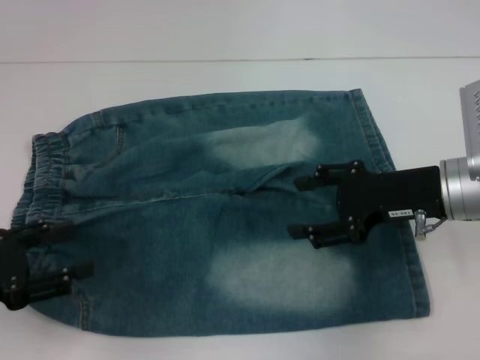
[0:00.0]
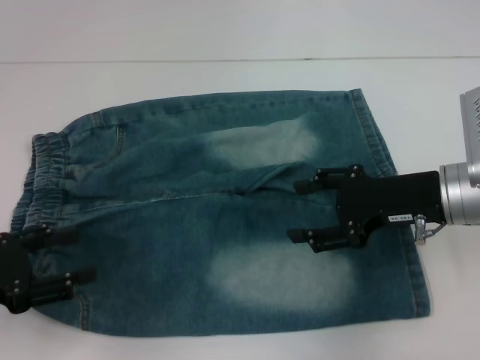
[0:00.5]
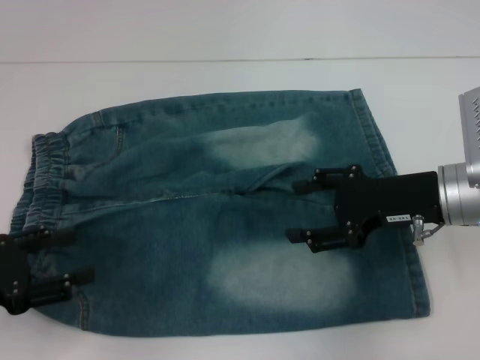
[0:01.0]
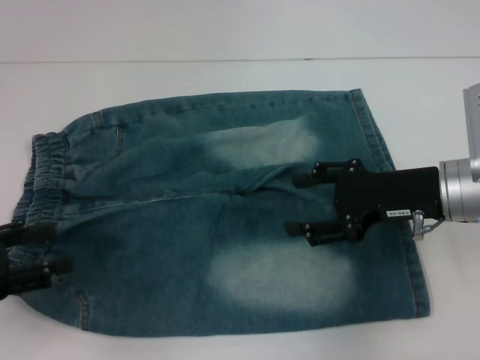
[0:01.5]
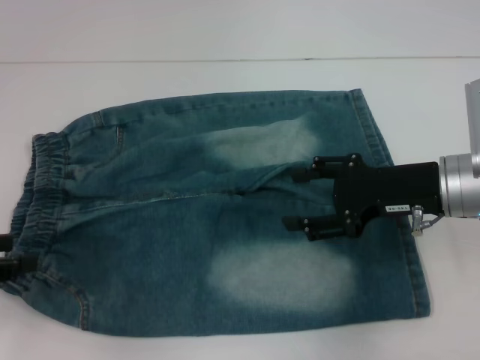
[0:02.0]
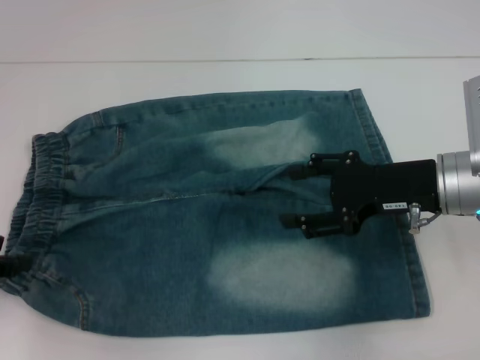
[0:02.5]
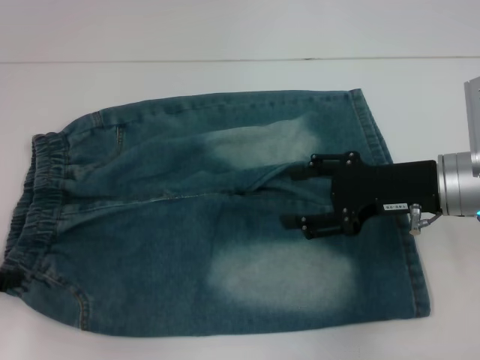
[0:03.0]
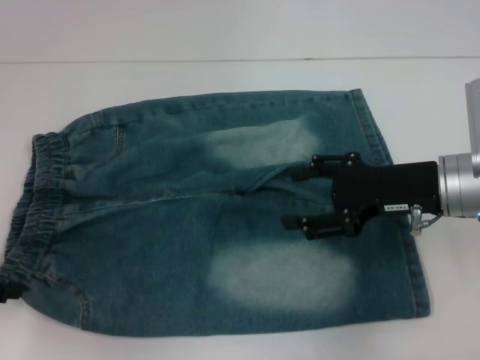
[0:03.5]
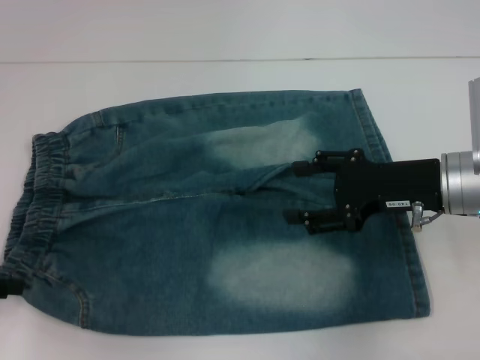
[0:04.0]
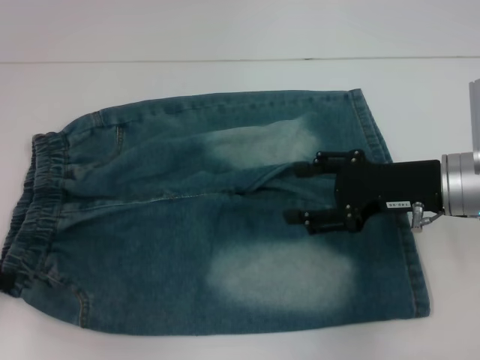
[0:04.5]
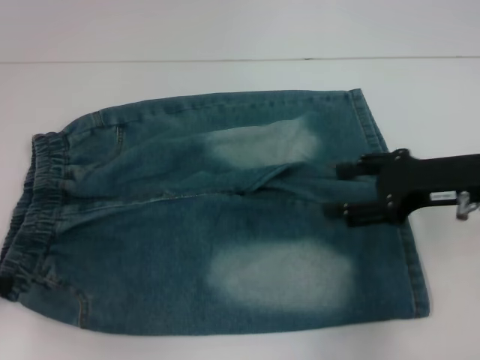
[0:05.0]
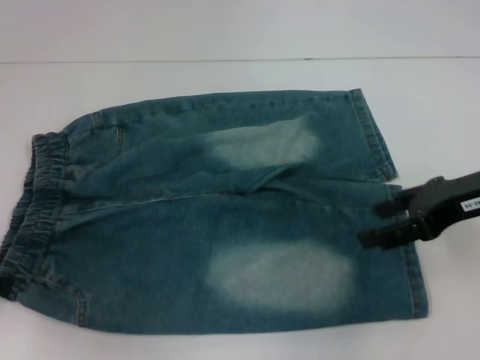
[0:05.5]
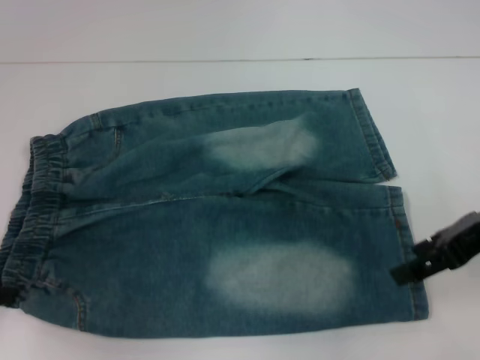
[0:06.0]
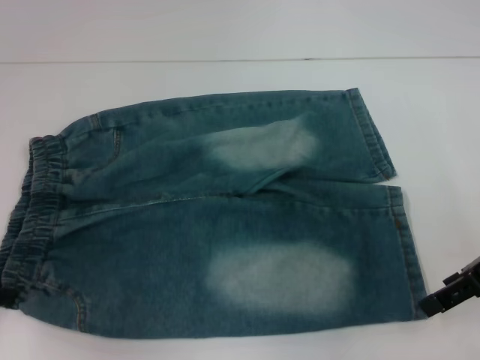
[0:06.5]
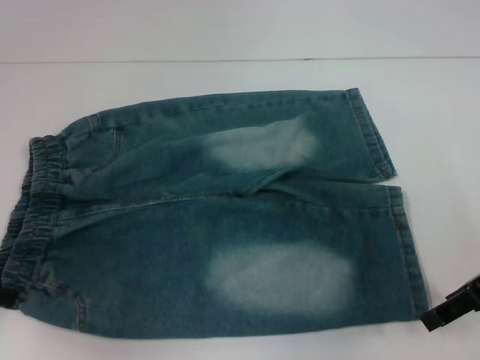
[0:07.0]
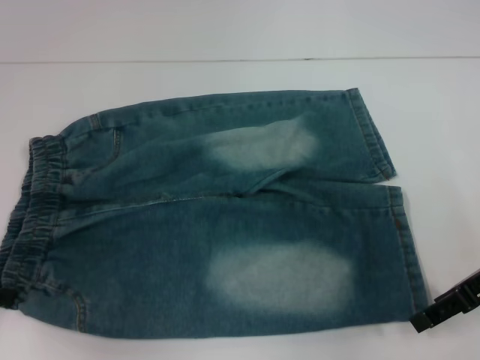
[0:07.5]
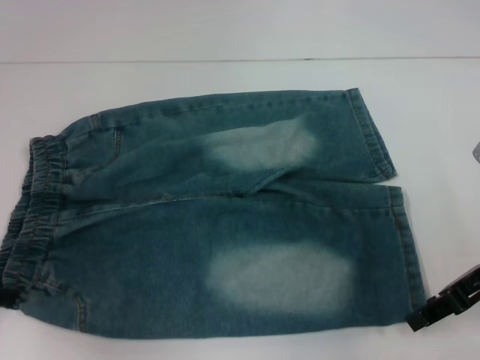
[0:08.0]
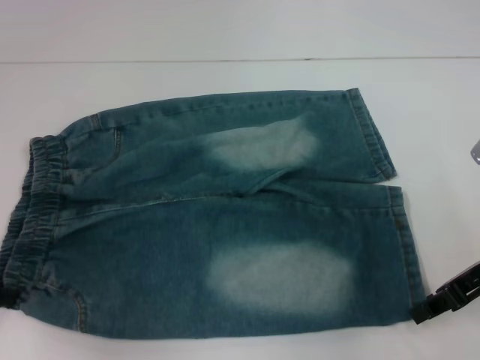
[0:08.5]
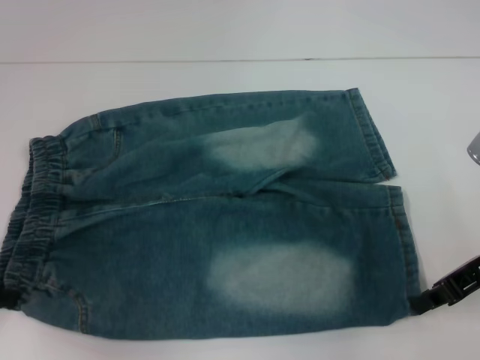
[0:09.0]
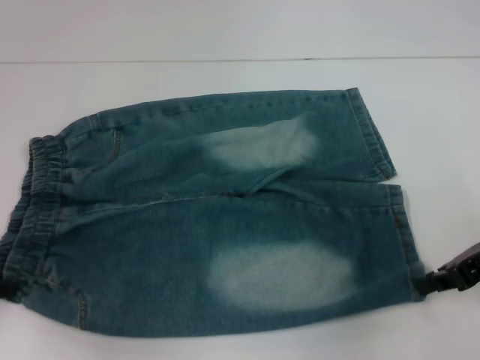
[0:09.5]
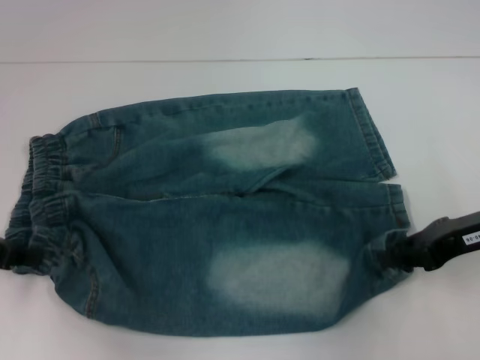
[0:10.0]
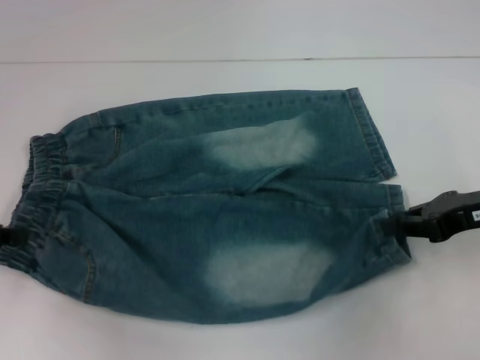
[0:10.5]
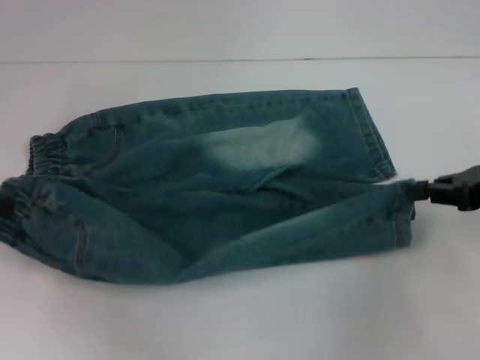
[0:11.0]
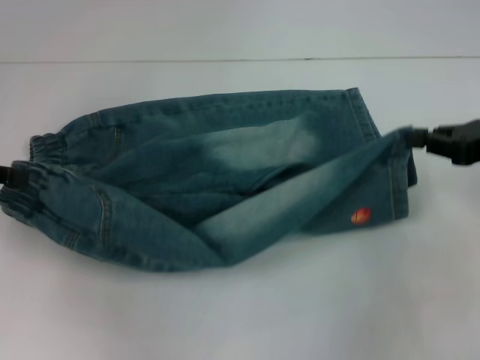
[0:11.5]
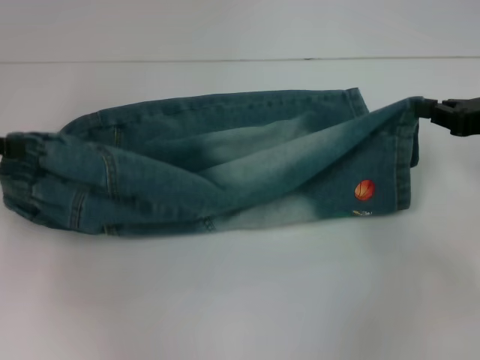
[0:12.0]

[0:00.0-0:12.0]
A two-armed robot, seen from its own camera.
Step, 0:00.0 to 0:04.0: Hold the lower left waistband with your left hand.
Step, 0:04.5 to 0:08.0: Grab the lower right pant leg with your right hand.
0:00.0 to 0:02.0: The left gripper ends up some 5 cm from where it was.
0:02.0 to 0:04.0: The grippers move only a little.
0:04.0 to 0:06.0: The right gripper is displaced upward by some 5 cm. The left gripper closes up.
0:06.0 to 0:08.0: The grippers stay close to where they were, moving slightly.
0:08.0 to 0:10.0: The right gripper closes.
0:10.0 to 0:12.0: The right gripper moves roughly 5 cm; the left gripper travels upward by some 5 cm.

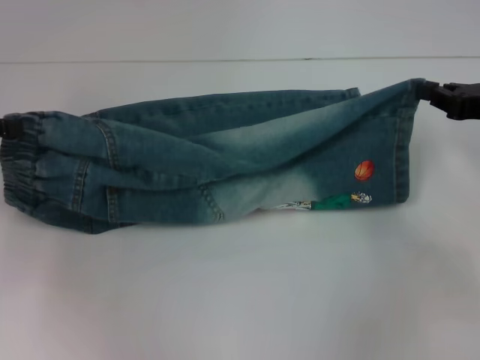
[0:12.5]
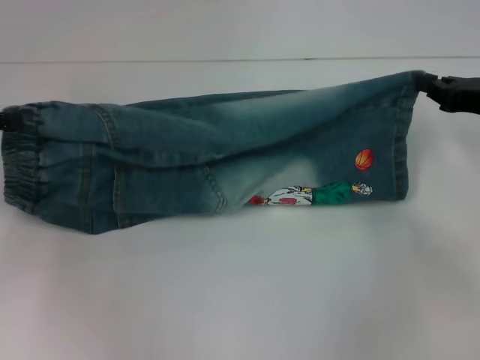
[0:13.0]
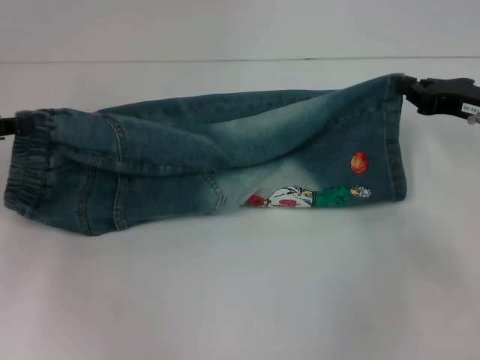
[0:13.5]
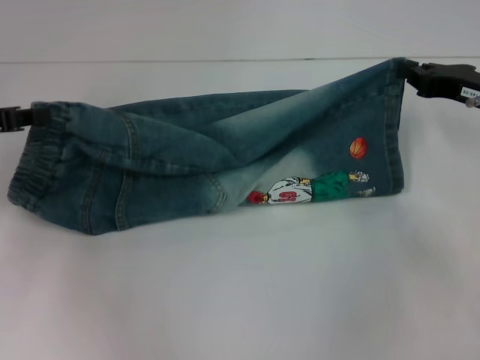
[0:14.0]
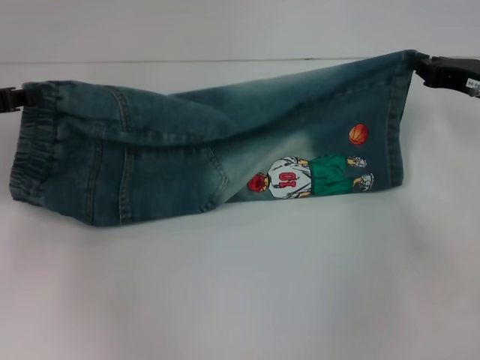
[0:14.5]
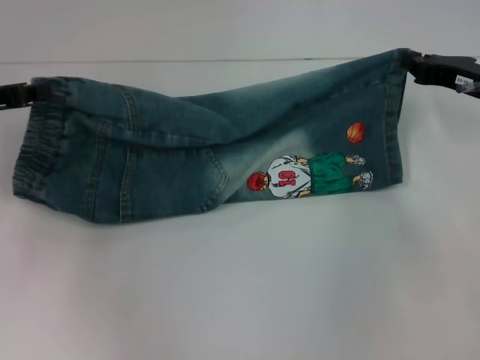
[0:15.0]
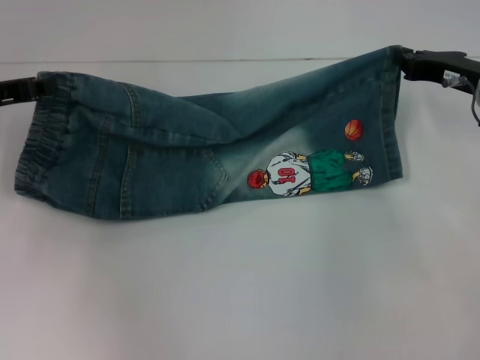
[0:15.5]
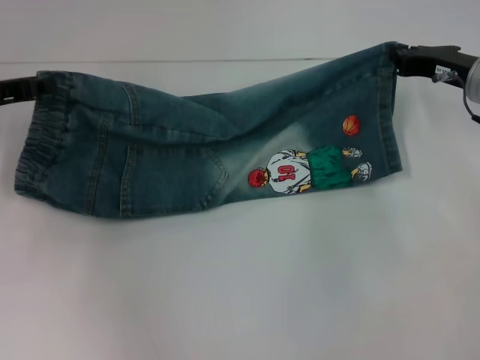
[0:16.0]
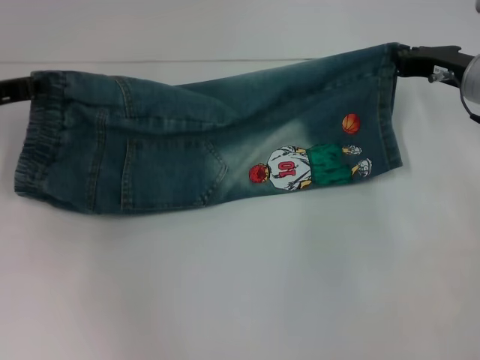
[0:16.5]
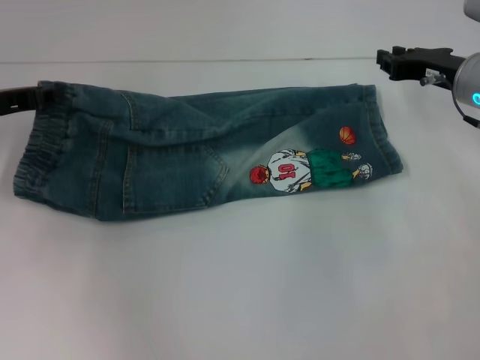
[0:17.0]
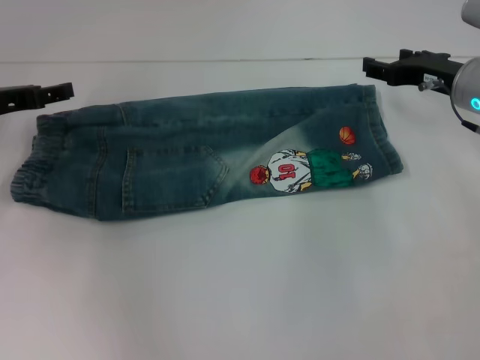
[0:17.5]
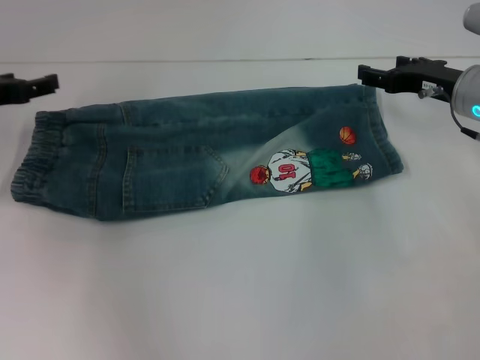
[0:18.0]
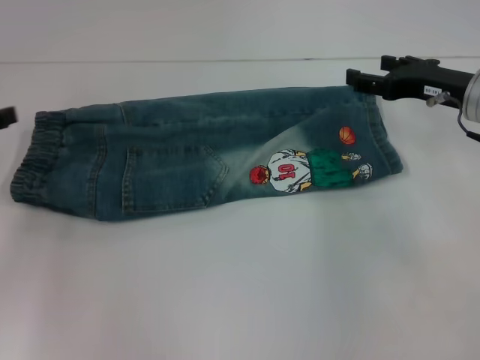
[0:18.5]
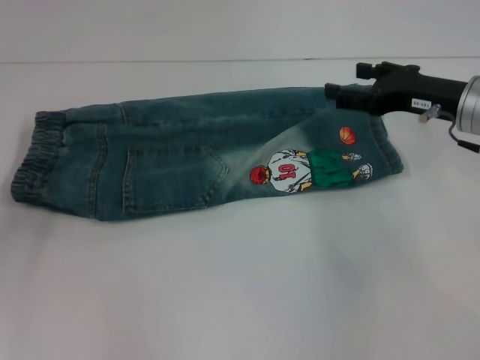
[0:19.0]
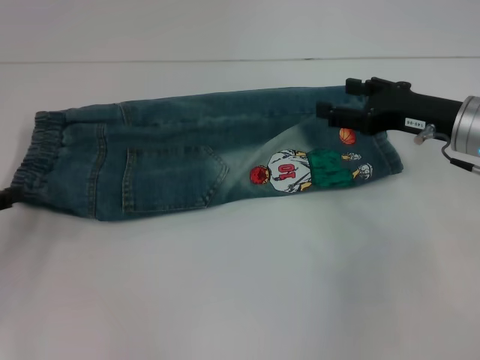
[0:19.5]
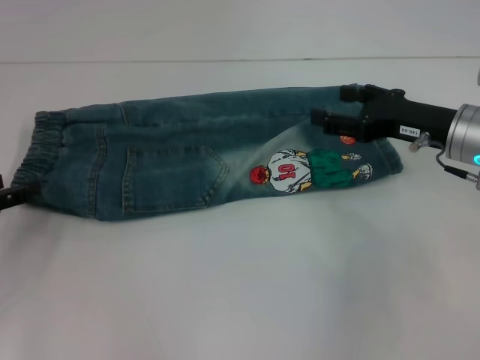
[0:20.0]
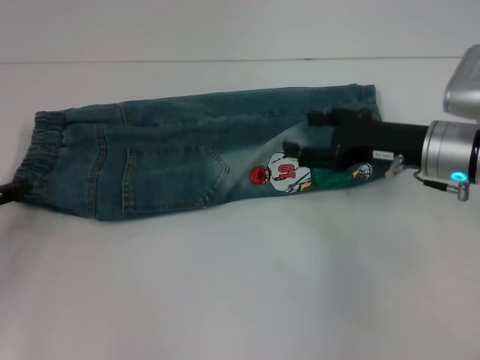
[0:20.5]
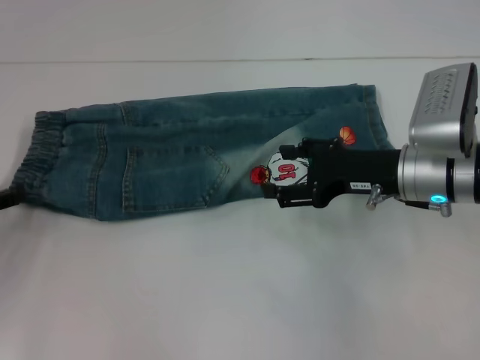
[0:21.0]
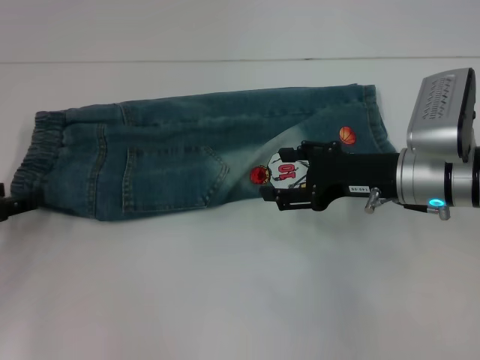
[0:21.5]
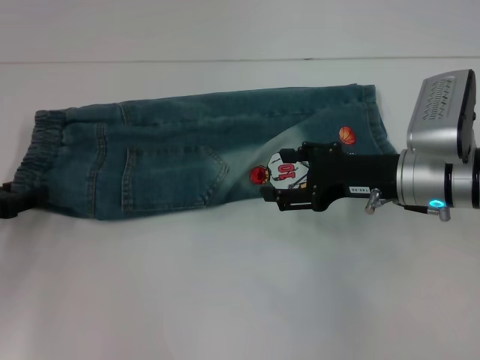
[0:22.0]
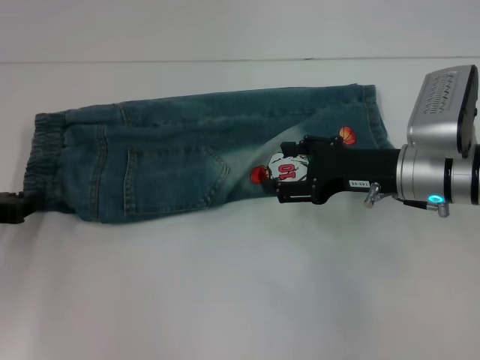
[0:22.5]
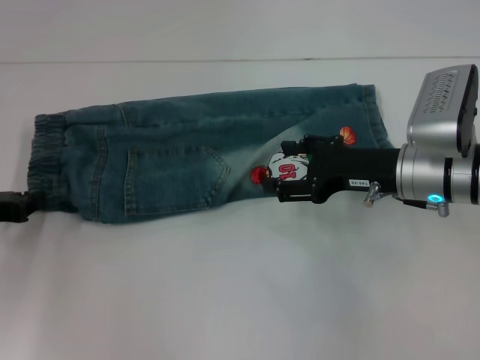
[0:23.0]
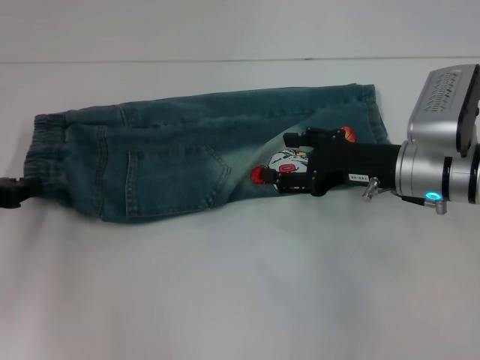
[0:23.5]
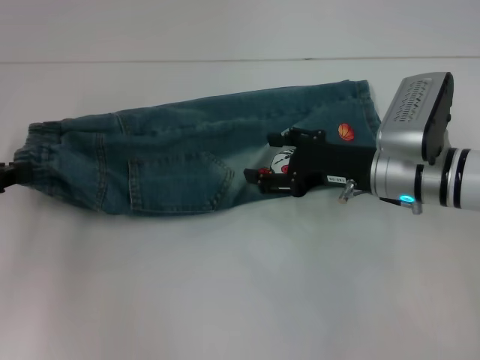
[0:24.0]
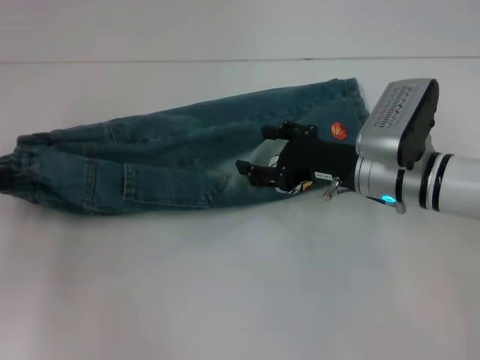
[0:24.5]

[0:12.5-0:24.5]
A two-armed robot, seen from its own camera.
Step, 0:12.5 to 0:17.5: Fold upward with your right hand.
Step, 0:18.0 to 0:21.5: Hold the waistband with your left hand.
0:12.5 to 0:14.5: The right gripper moves some 5 cm.
0:14.5 to 0:16.5: The grippers make only small movements.
0:16.5 to 0:18.5: The left gripper heads backward and to the left, covering about 10 cm, and opens. Meanwhile the right gripper opens up.
0:18.5 to 0:20.5: The right gripper moves approximately 5 cm; the left gripper shifts roughly 5 cm downward.
0:20.5 to 0:22.5: The left gripper closes up.
0:22.5 to 0:24.5: The left gripper goes approximately 10 cm upward.

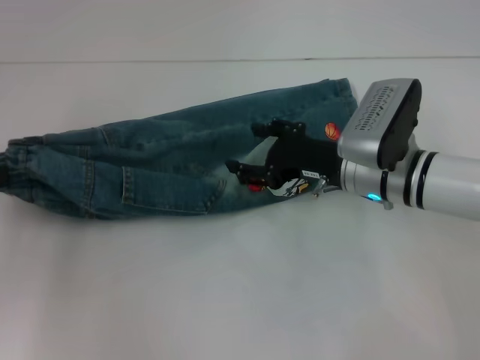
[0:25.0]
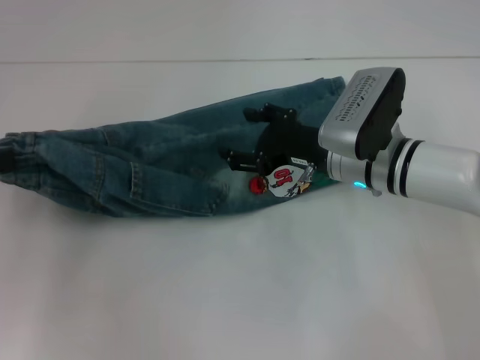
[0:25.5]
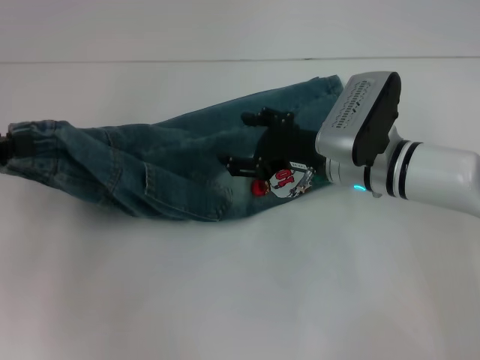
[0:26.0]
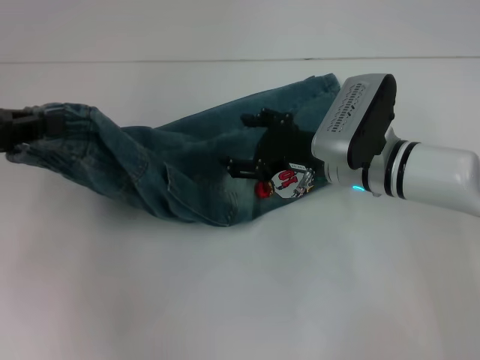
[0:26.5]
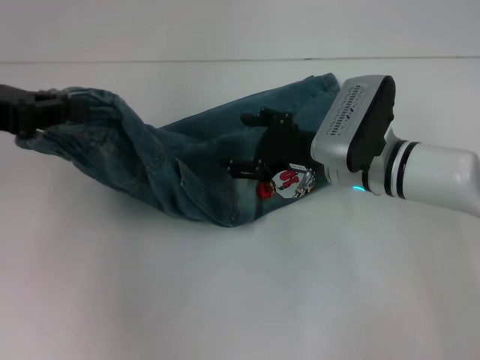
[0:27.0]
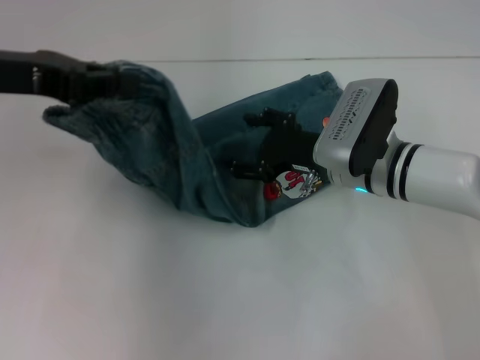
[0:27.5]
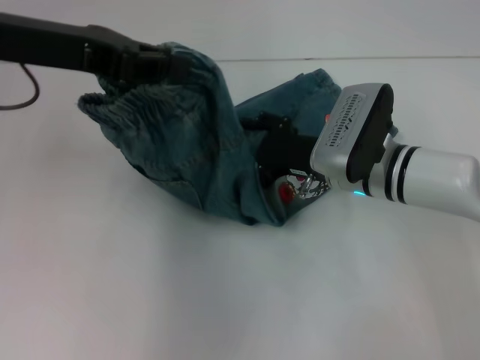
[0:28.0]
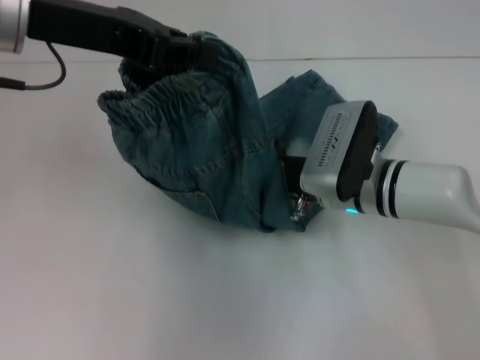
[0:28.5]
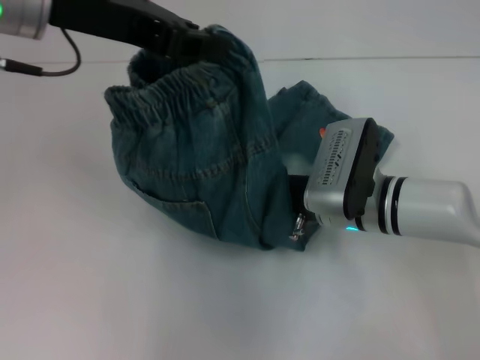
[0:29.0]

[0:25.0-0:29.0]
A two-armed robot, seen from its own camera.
0:25.0 to 0:27.0: The left gripper is displaced to the right and upward by about 10 cm.
0:27.0 to 0:29.0: The left gripper is displaced to the right, upward and forward by some 15 cm.
